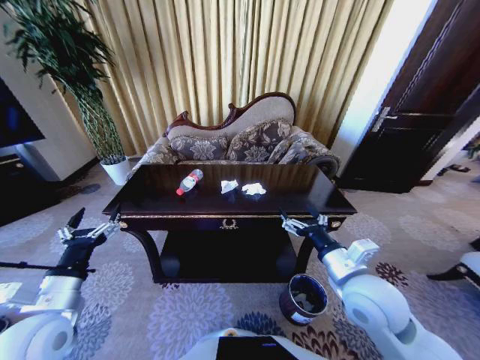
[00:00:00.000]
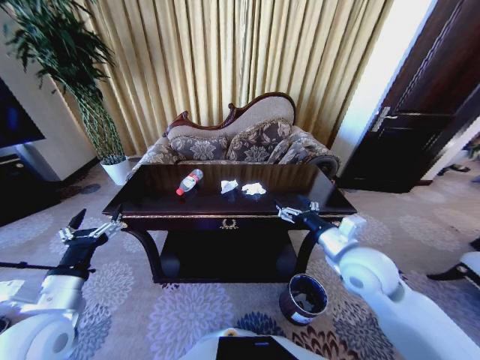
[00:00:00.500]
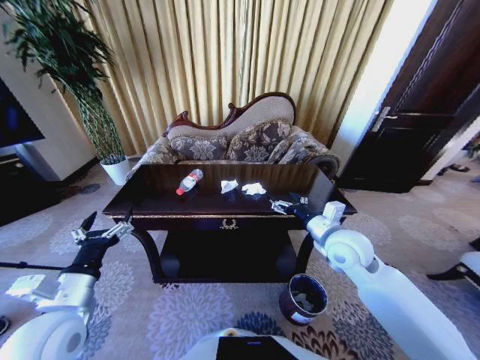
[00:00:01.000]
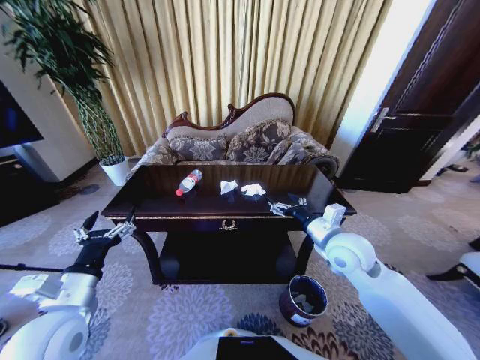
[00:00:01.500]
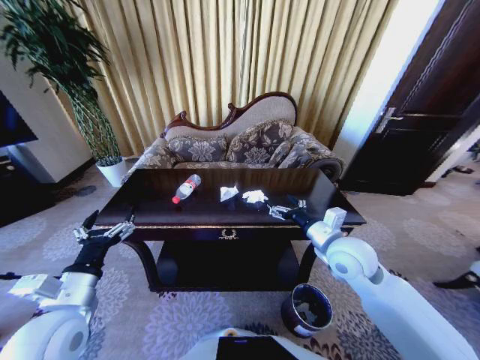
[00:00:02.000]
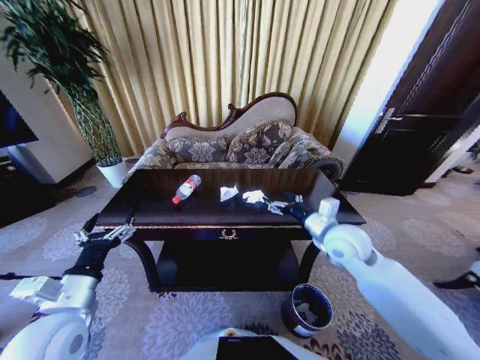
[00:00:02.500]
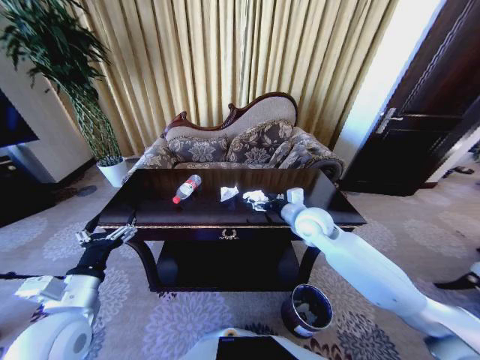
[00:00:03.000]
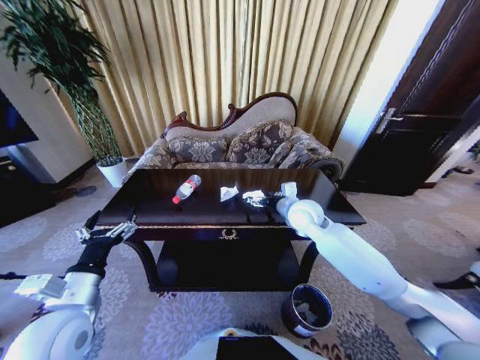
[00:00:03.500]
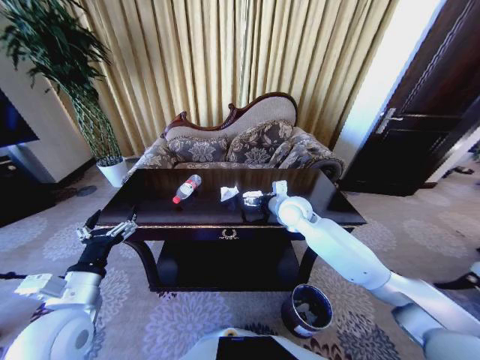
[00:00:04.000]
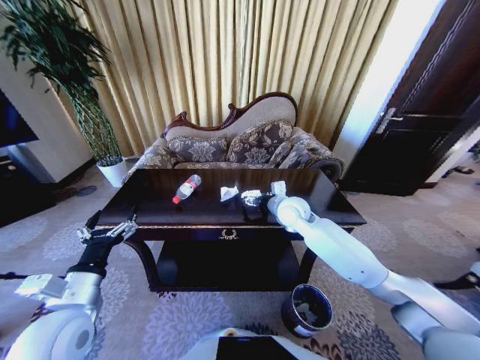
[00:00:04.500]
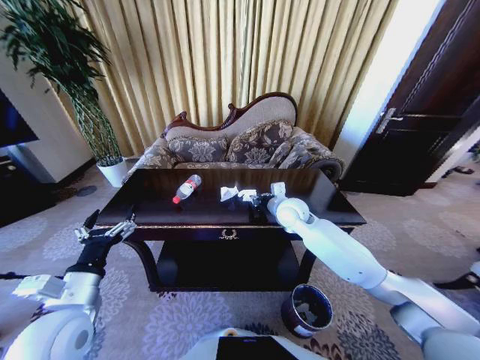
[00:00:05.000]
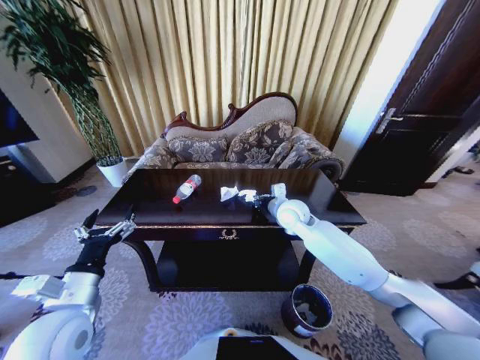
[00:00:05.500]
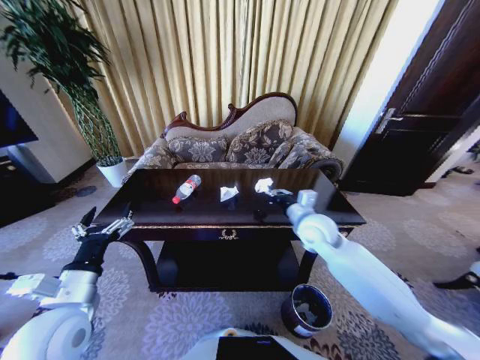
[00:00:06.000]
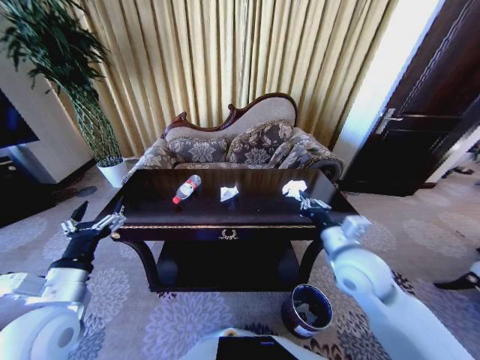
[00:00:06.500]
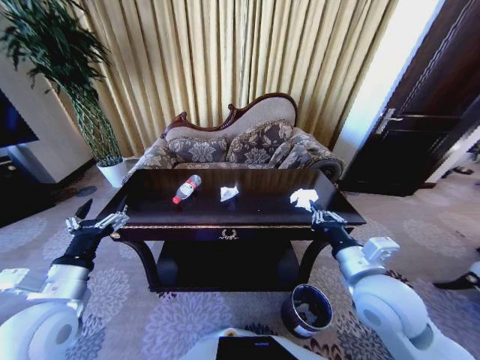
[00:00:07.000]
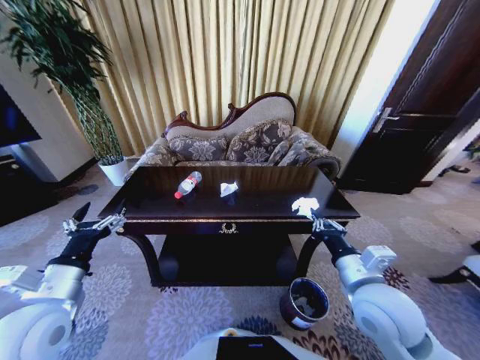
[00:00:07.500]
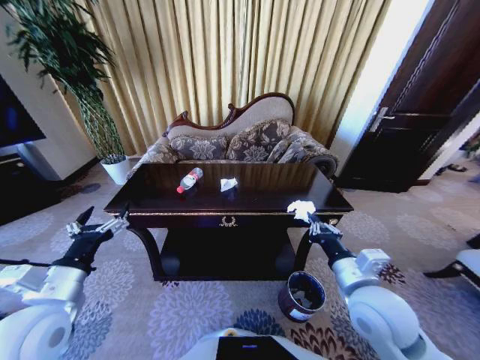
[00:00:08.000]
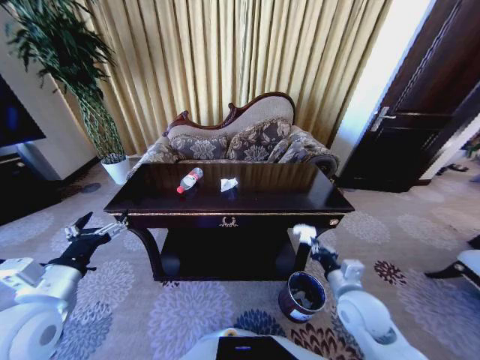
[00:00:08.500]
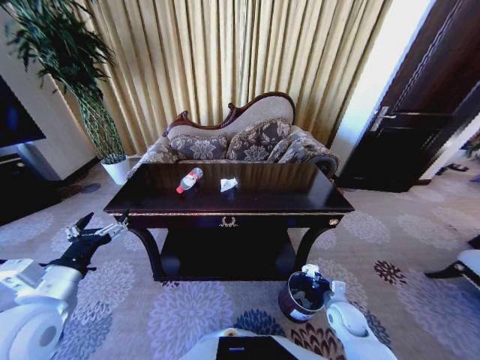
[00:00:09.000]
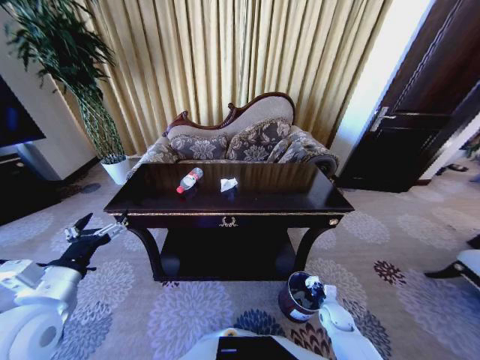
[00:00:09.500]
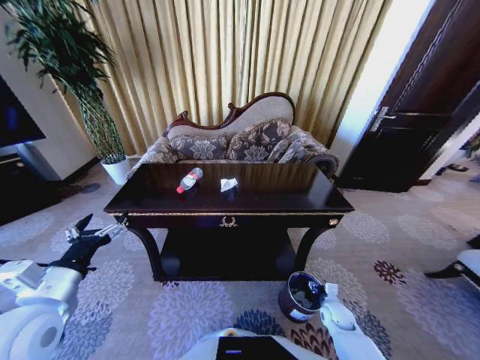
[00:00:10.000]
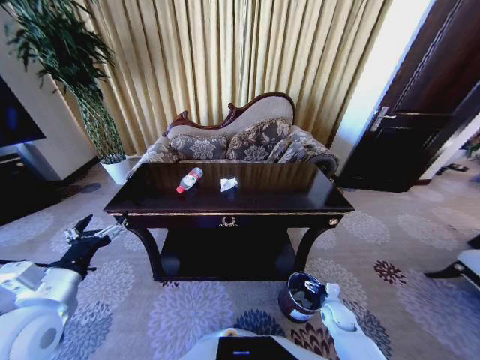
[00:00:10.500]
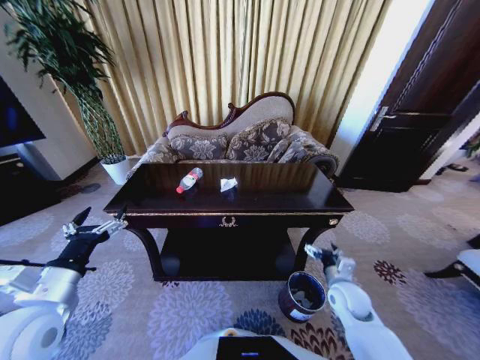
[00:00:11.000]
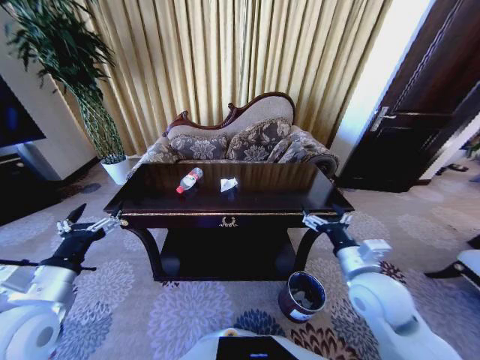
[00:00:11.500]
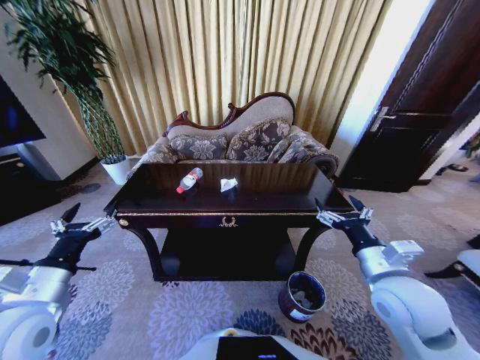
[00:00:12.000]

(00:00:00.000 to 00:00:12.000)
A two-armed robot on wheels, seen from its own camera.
Task of the whole recording: Move to the front of the table and place the trash on the table into the trash bin.
00:00:00.000 - 00:00:02.000: The right gripper is displaced forward by roughly 10 cm.
00:00:02.000 - 00:00:04.000: The right gripper goes about 15 cm forward and to the left.
00:00:04.000 - 00:00:06.000: The right gripper is displaced backward by approximately 5 cm, and closes.
00:00:06.000 - 00:00:08.000: The right gripper goes roughly 20 cm backward.
00:00:08.000 - 00:00:10.000: The right gripper travels downward by about 30 cm, and opens up.
00:00:10.000 - 00:00:12.000: The right gripper is displaced upward by some 35 cm, and opens its fingers.

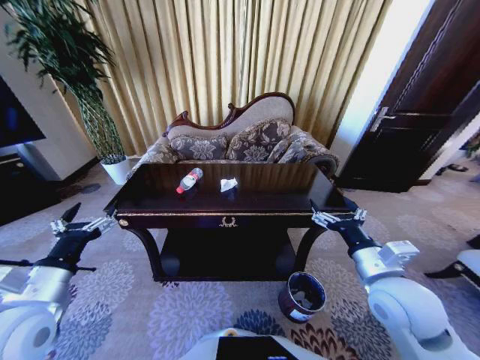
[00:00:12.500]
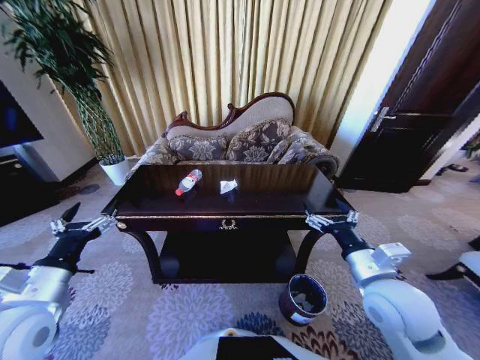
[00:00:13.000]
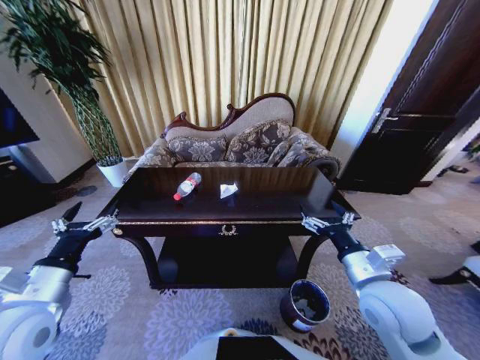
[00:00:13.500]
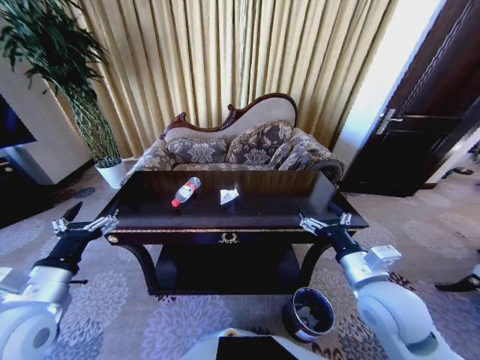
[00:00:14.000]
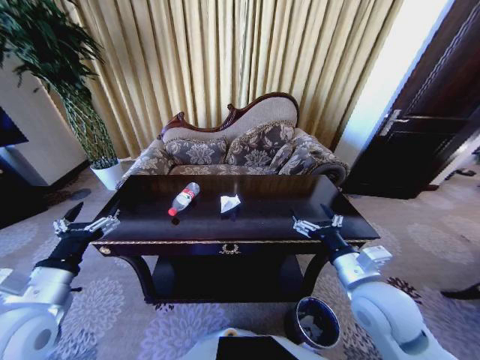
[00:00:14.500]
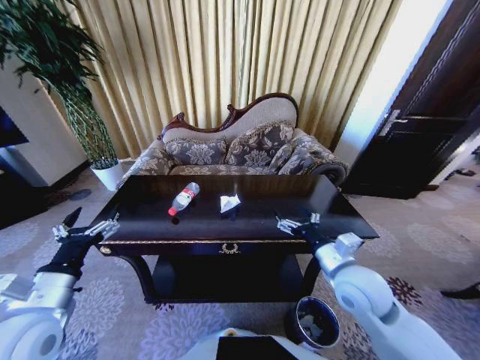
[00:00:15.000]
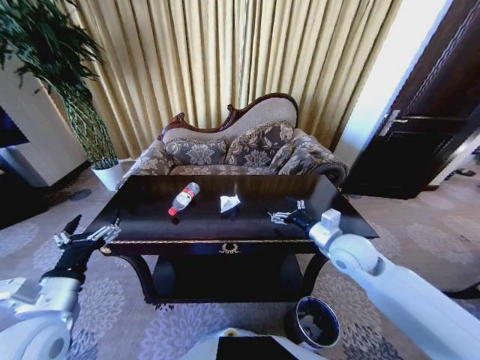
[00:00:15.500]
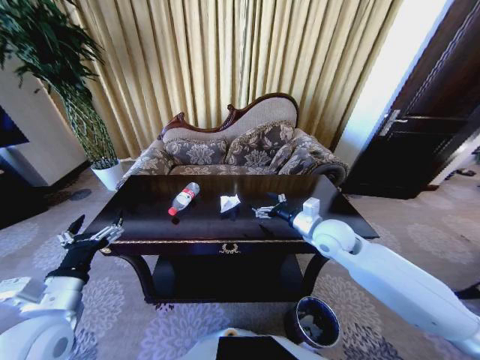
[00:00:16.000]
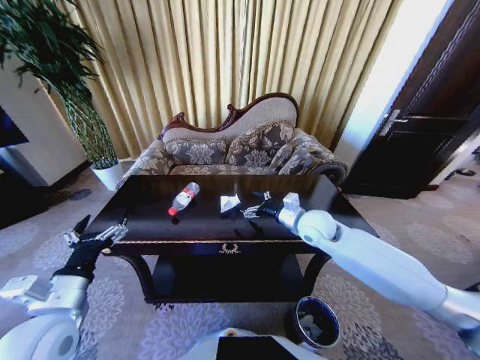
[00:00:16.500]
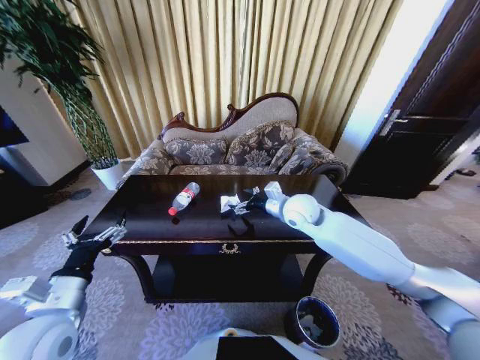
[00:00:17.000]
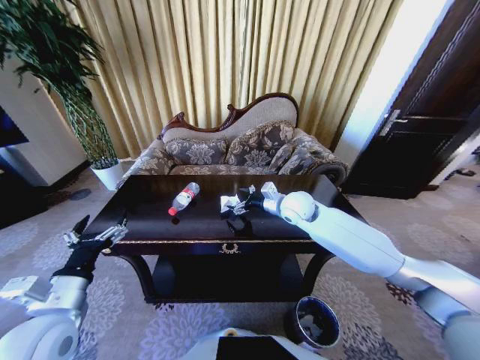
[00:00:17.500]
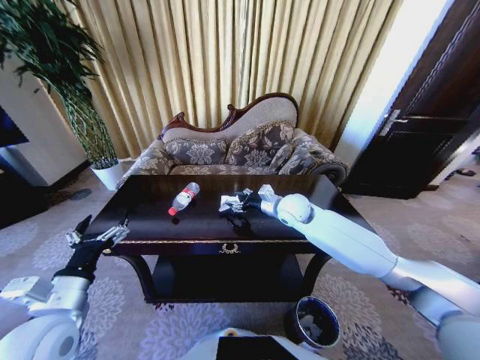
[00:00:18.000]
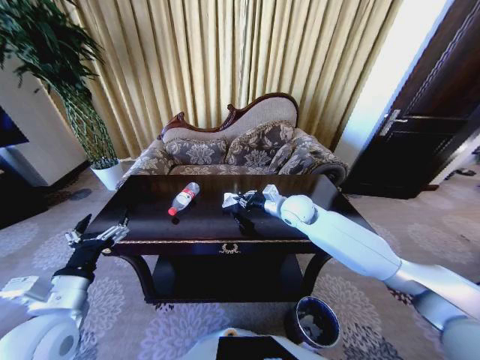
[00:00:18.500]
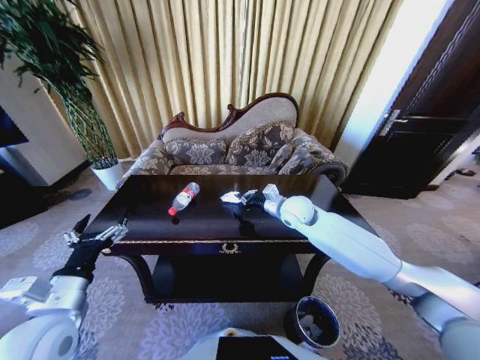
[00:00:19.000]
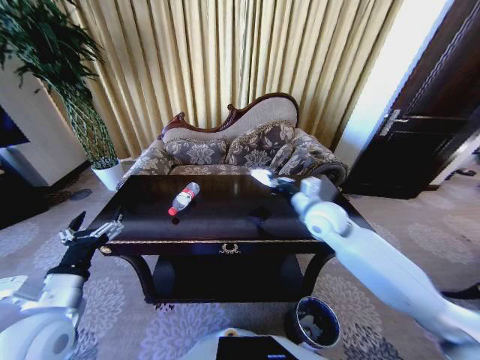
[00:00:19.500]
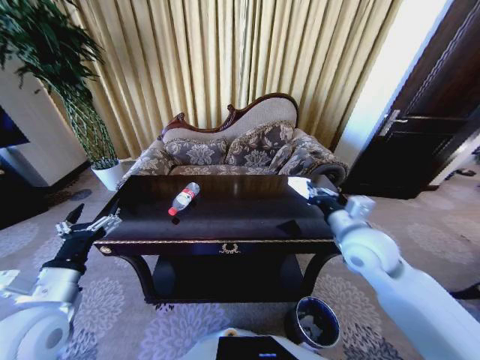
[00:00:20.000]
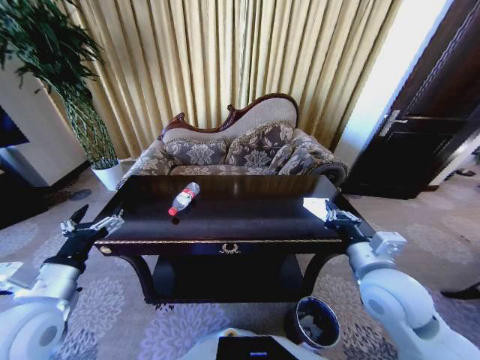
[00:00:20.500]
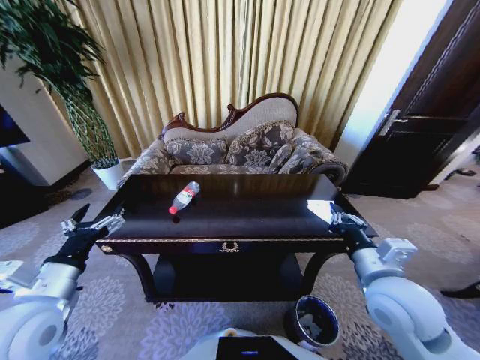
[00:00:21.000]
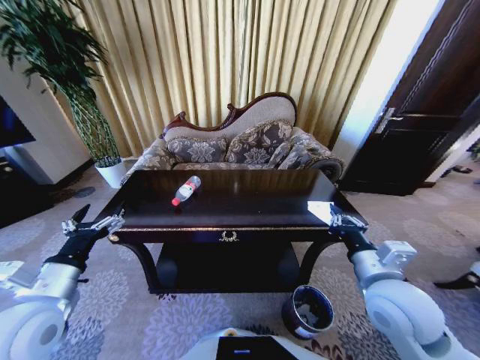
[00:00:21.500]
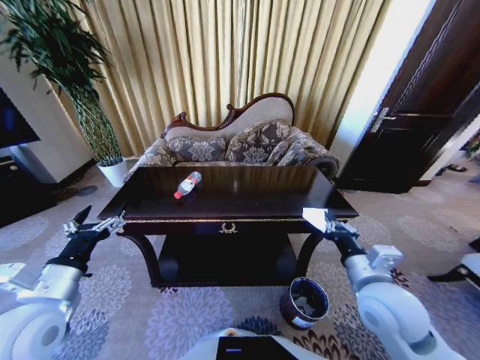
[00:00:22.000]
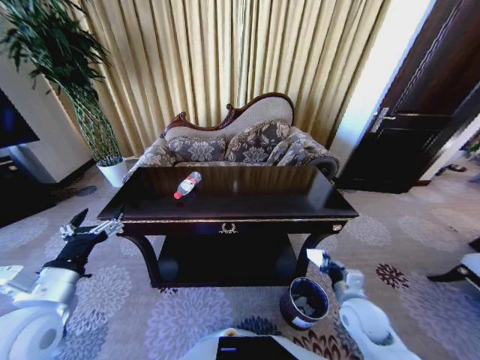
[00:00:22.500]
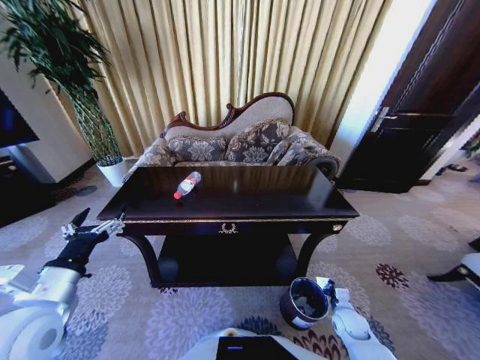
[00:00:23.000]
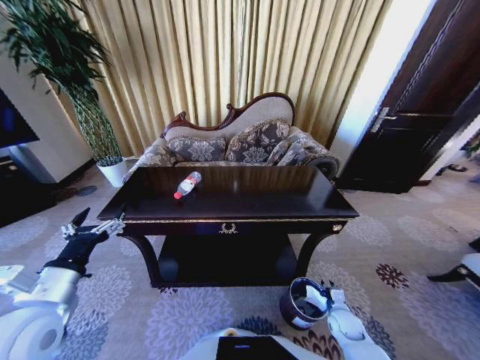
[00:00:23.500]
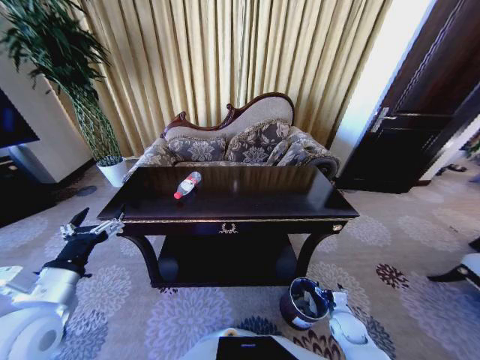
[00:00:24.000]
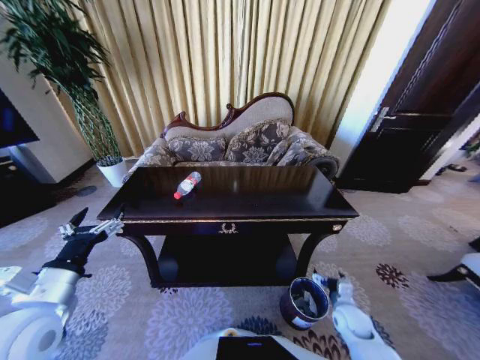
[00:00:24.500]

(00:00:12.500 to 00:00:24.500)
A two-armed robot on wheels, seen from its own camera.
Task of the whole recording: Move to the front of the table and place the trash on the table into the trash bin.
00:00:14.500 - 00:00:16.500: The right gripper travels forward by about 20 cm.
00:00:16.500 - 00:00:18.500: The right gripper goes roughly 5 cm forward, and closes its fingers.
00:00:18.500 - 00:00:20.500: The right gripper shifts about 25 cm backward.
00:00:20.500 - 00:00:22.500: The right gripper goes about 20 cm downward.
00:00:22.500 - 00:00:24.500: The right gripper travels downward by some 10 cm, and opens.

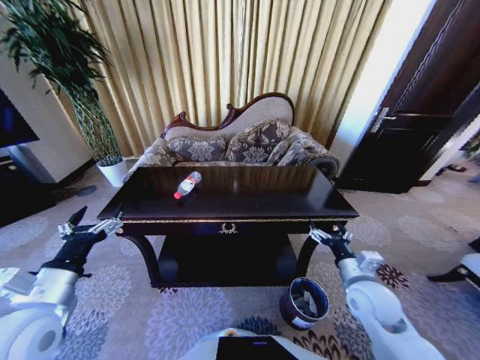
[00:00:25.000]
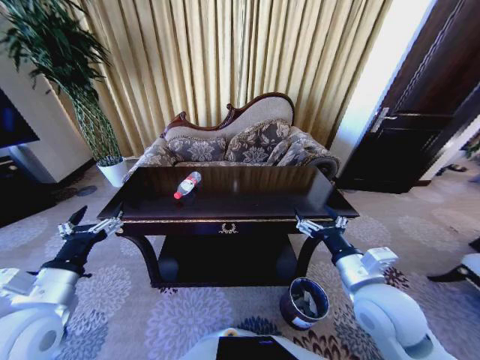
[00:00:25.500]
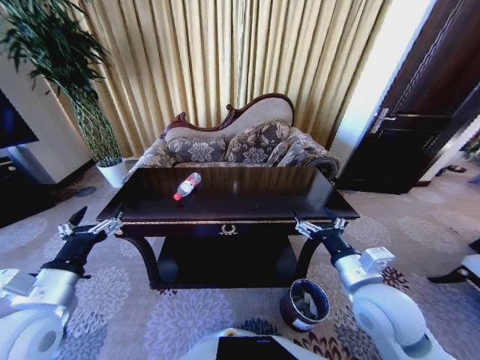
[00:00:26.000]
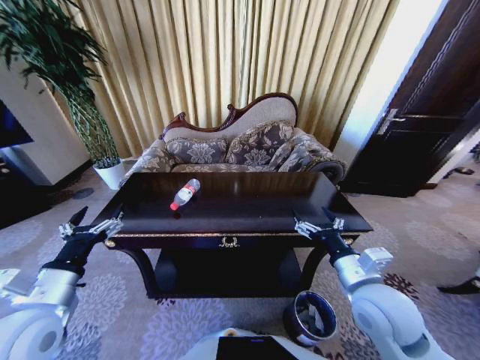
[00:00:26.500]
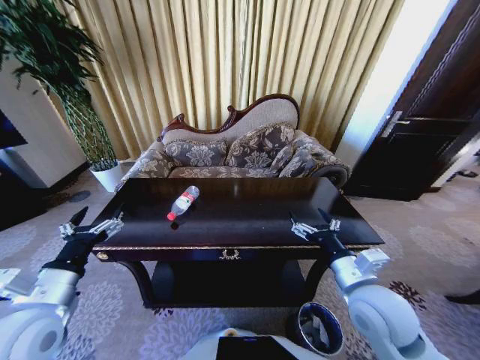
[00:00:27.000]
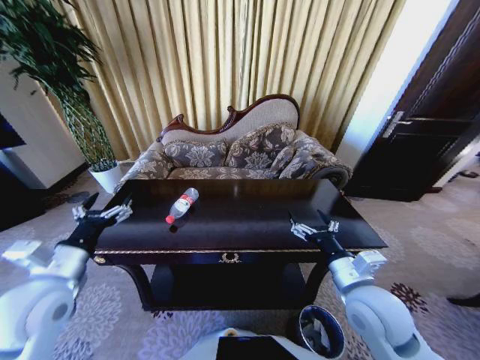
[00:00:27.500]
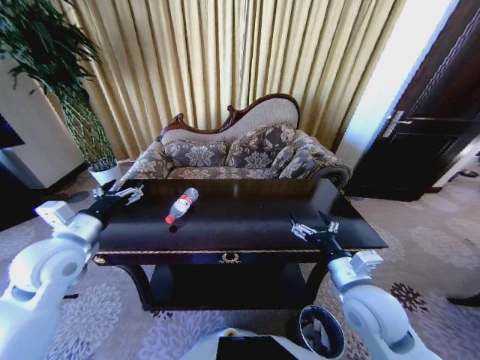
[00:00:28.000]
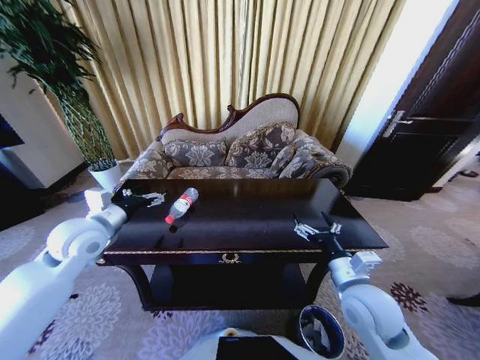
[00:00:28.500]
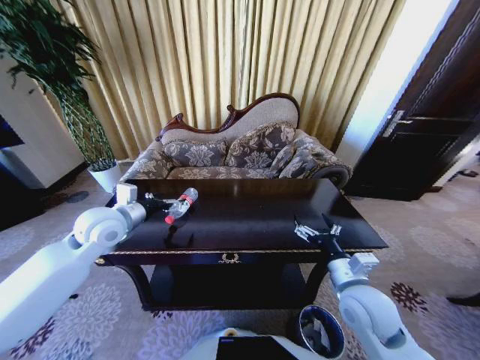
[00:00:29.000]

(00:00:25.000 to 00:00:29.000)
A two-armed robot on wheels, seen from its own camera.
Task of the whole recording: Move to the front of the table and place the trash on the table into the trash bin.
00:00:25.000 - 00:00:27.000: The right gripper goes approximately 10 cm upward and to the left.
00:00:27.000 - 00:00:29.000: The left gripper moves forward, approximately 20 cm.
